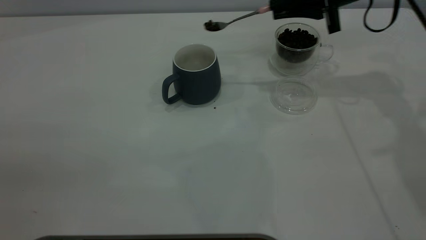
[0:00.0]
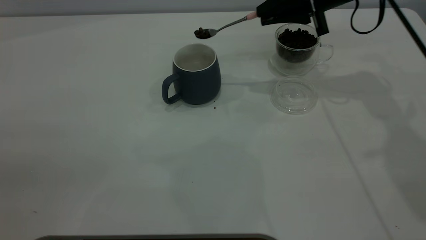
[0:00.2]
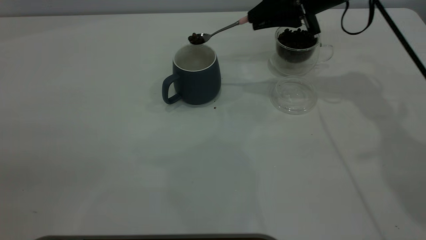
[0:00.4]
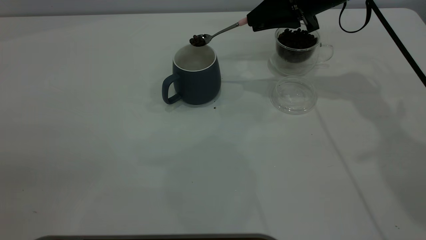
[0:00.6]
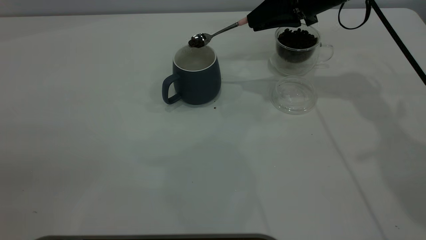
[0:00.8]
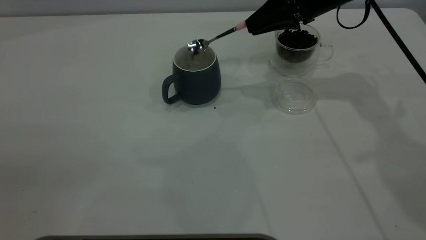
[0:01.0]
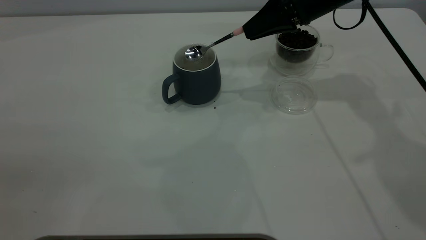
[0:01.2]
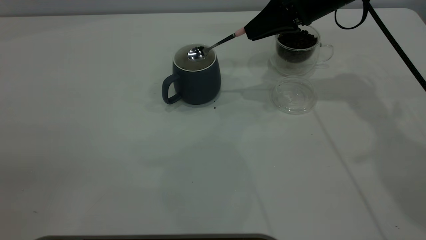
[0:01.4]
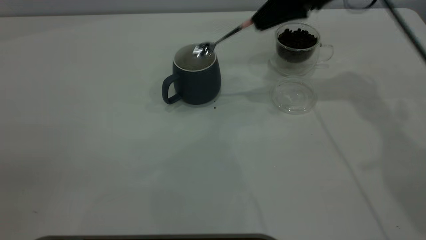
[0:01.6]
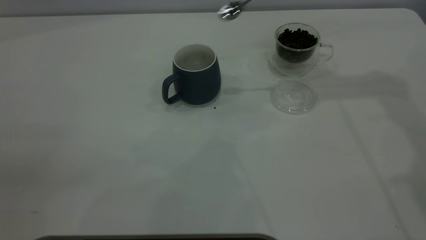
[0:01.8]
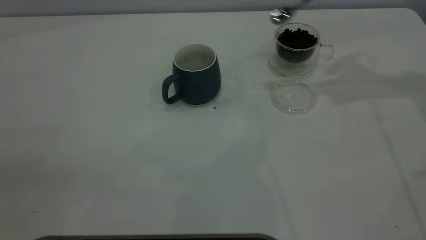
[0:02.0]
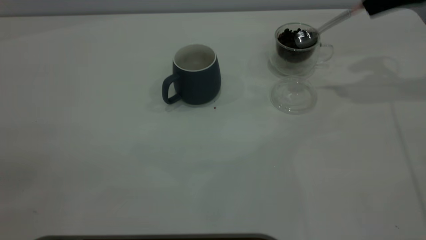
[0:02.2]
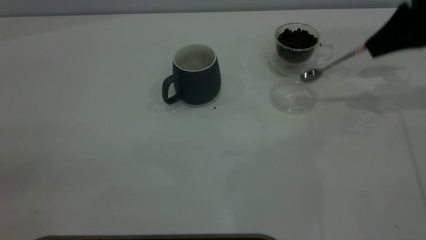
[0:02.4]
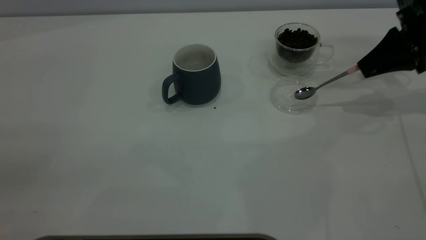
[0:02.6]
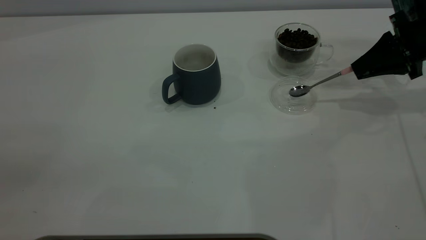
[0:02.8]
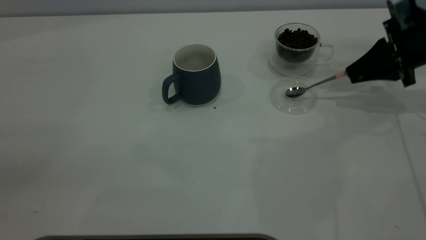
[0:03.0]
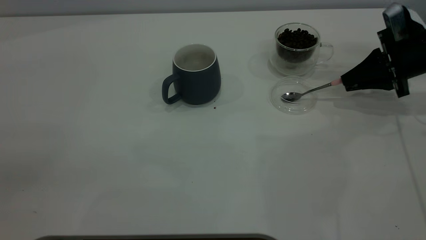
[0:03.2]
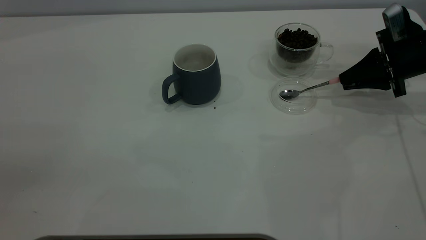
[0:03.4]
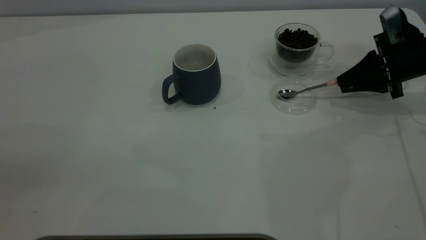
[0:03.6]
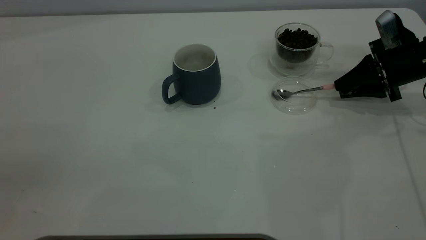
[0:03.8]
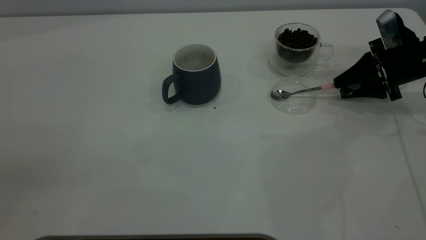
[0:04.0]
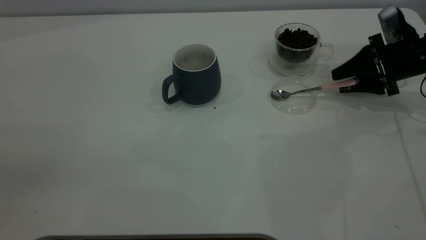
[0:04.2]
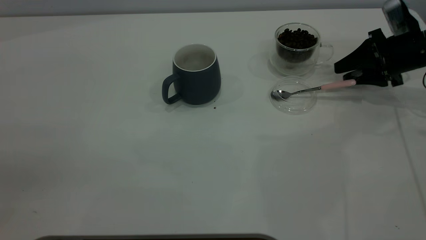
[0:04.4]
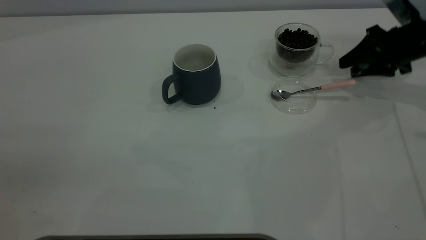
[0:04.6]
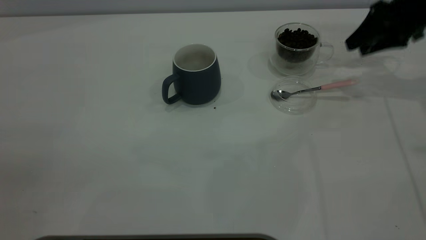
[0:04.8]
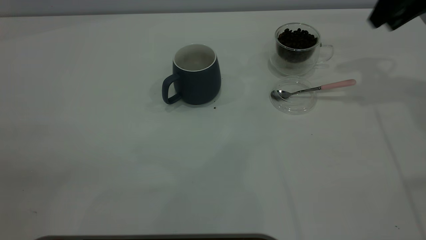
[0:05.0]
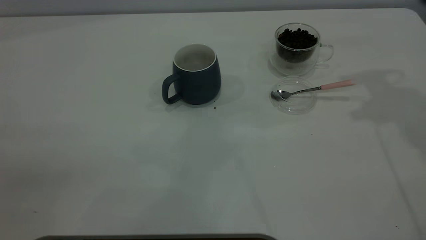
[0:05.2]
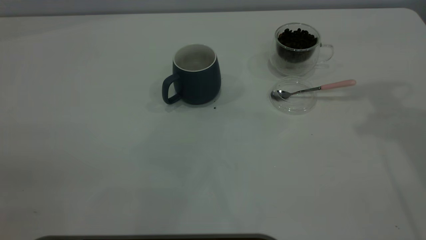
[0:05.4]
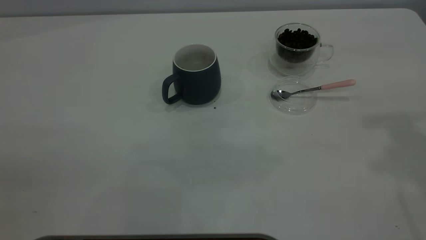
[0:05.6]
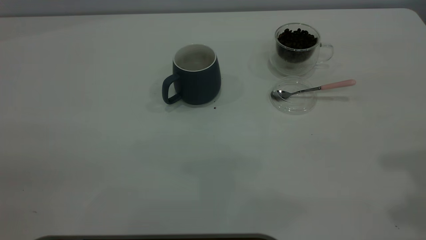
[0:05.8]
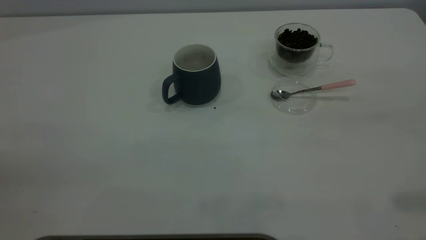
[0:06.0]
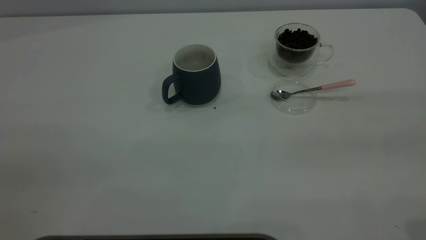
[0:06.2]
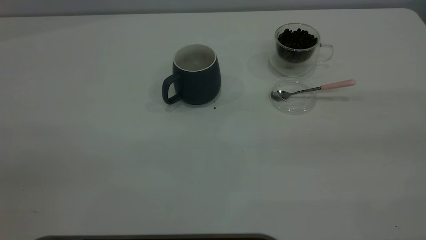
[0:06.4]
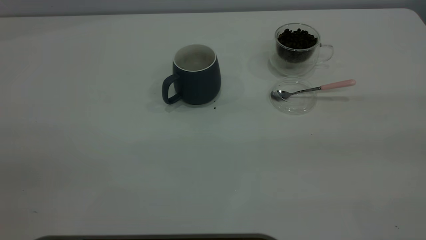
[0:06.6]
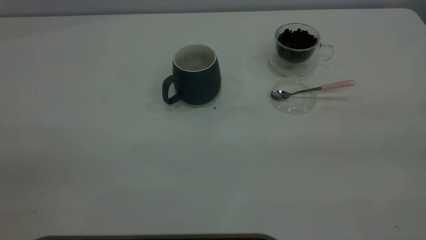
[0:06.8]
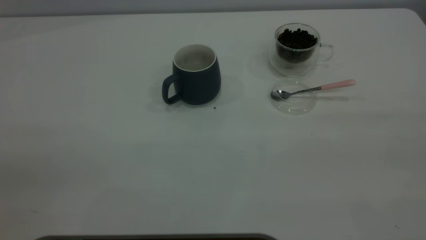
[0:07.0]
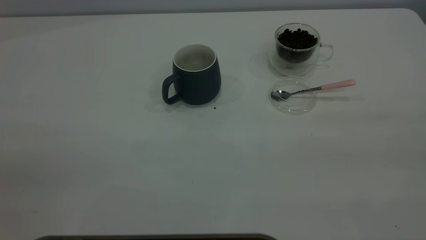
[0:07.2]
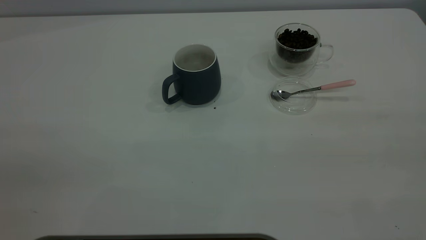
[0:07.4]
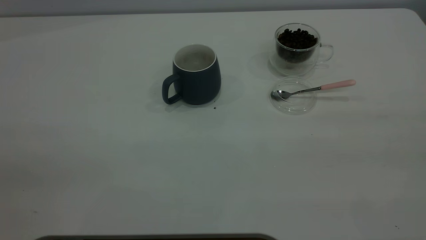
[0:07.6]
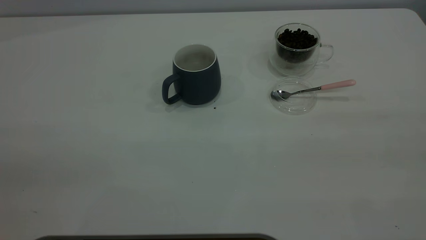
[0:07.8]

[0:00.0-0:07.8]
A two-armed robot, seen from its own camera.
Task of the whole recording: the left gripper place the grey cup in the center of the table, the right gripper take the pink spoon from the cup lid and scoop out the coffee beans from the coffee cup and put them into the grey cup, the right gripper put the spoon back into the cup lid.
Step, 0:01.6 to 0:04.4: Place the spoon back in its original place.
0:01.6 to 0:03.2: The right gripper moves to the right and downward, roughly 20 cm.
0:03.2 to 0:04.6: The right gripper opens.
0:04.6 to 0:06.2: The right gripper goes some 40 cm backward and upward.

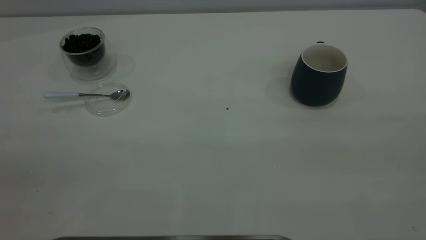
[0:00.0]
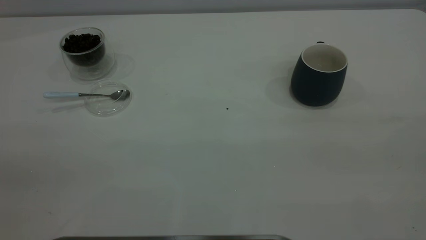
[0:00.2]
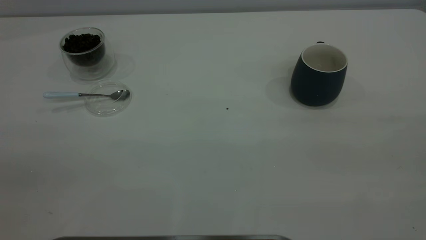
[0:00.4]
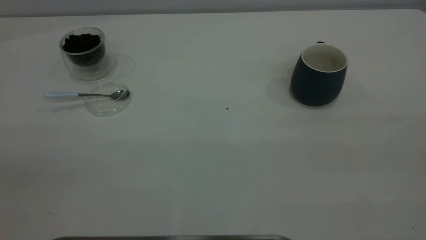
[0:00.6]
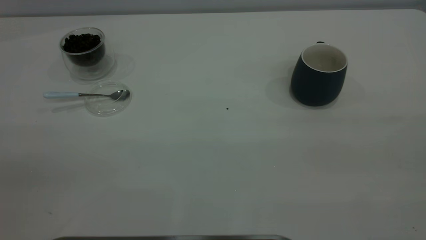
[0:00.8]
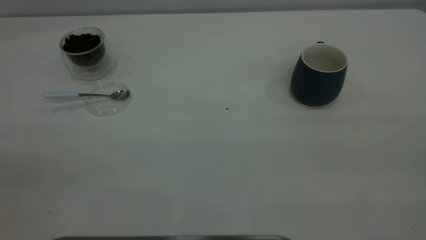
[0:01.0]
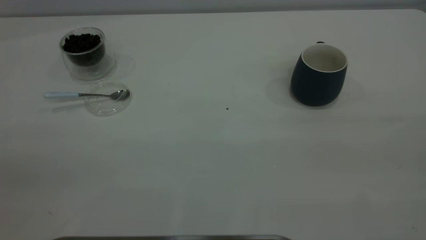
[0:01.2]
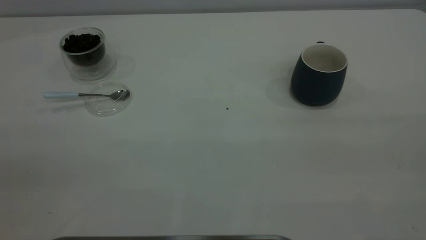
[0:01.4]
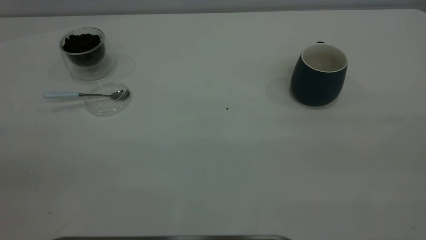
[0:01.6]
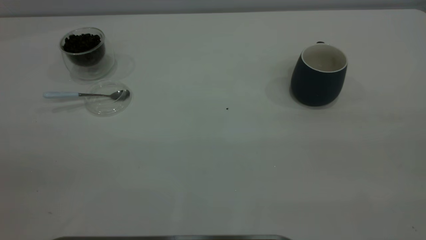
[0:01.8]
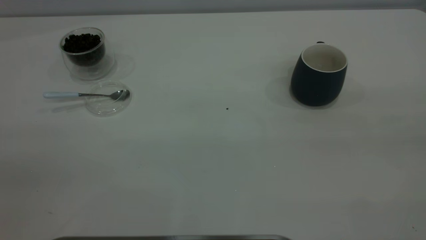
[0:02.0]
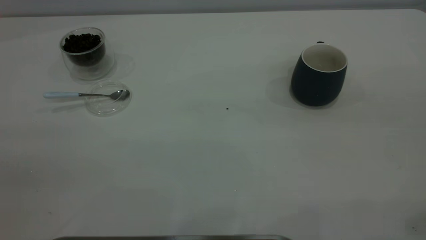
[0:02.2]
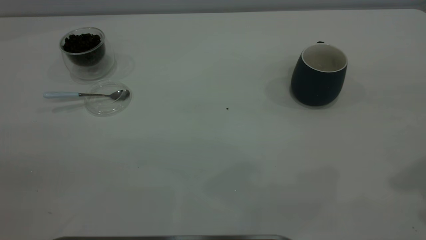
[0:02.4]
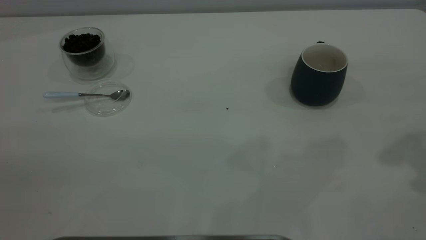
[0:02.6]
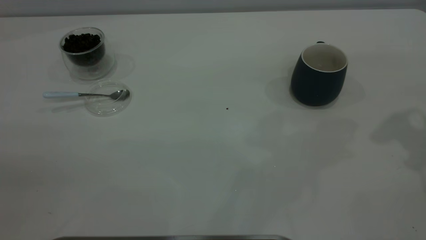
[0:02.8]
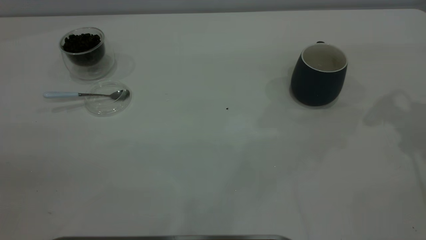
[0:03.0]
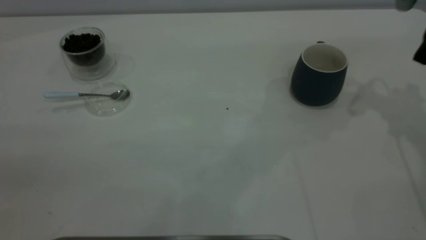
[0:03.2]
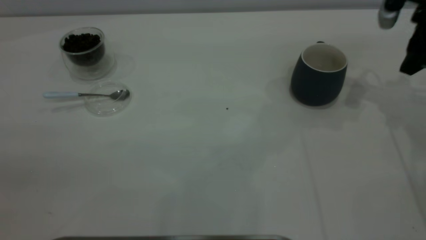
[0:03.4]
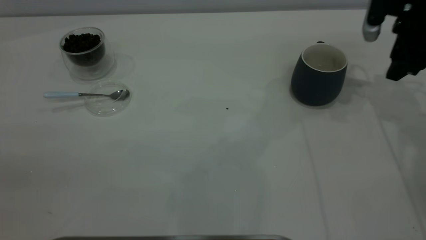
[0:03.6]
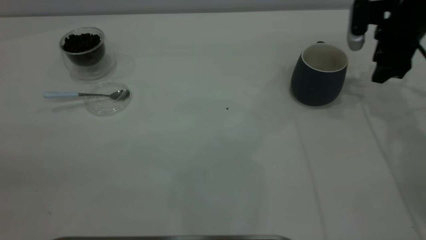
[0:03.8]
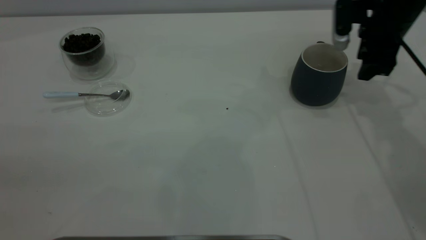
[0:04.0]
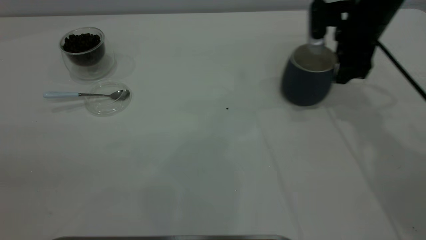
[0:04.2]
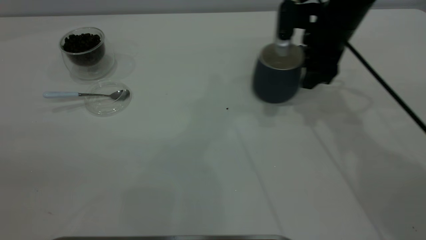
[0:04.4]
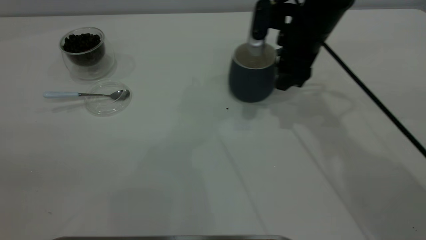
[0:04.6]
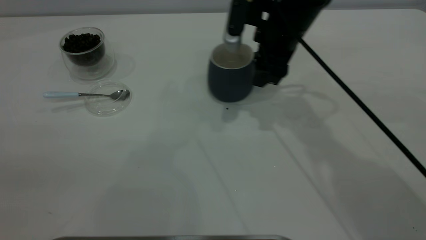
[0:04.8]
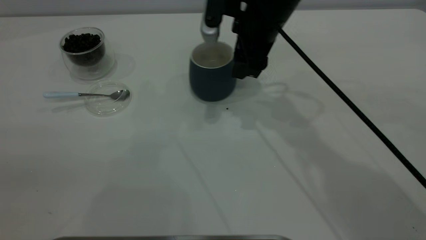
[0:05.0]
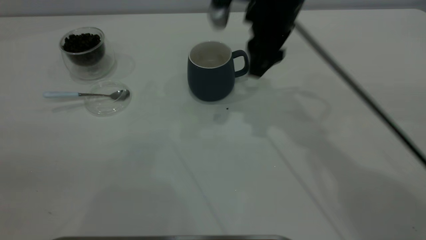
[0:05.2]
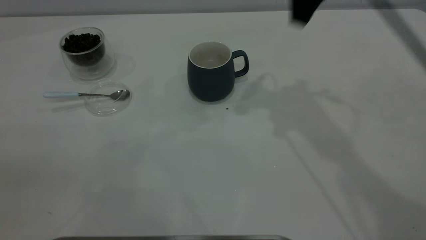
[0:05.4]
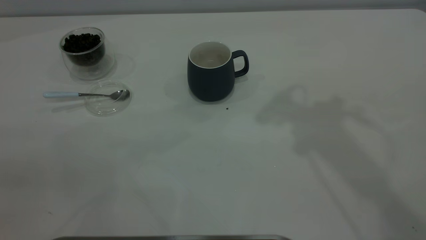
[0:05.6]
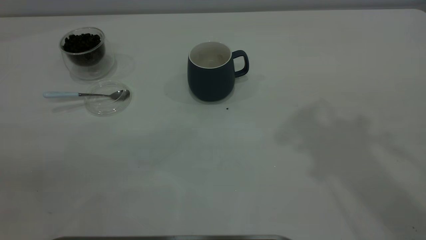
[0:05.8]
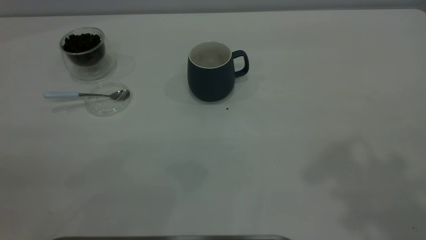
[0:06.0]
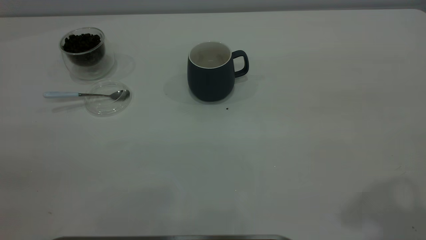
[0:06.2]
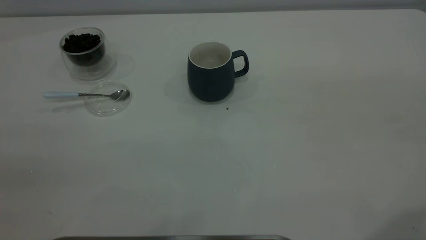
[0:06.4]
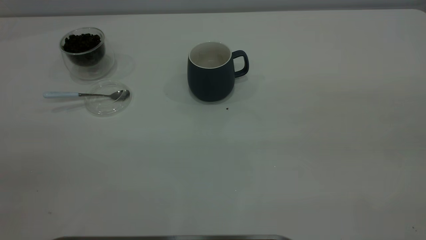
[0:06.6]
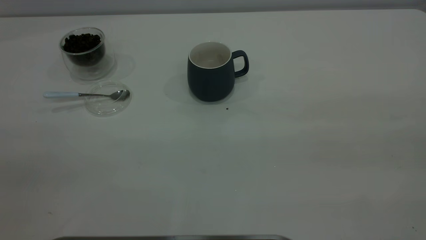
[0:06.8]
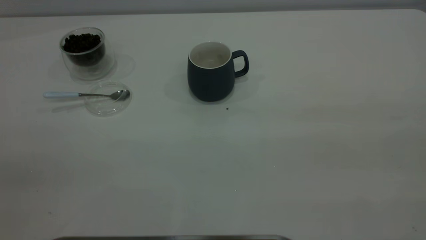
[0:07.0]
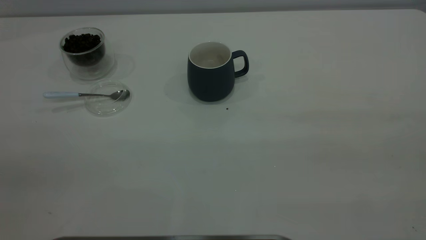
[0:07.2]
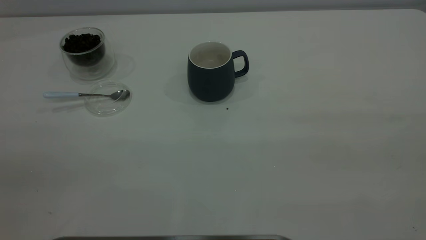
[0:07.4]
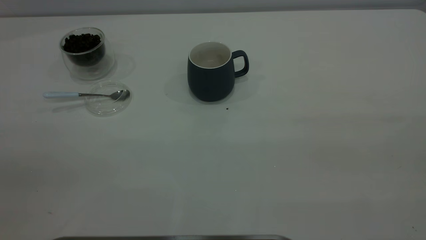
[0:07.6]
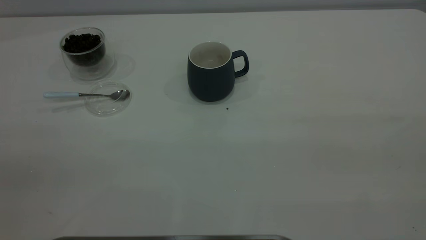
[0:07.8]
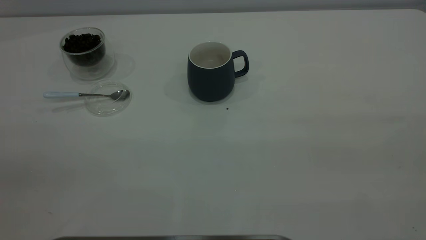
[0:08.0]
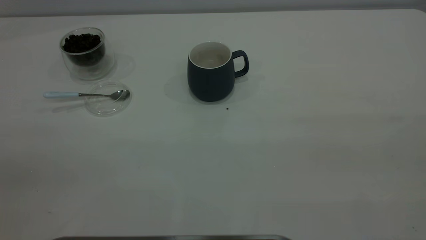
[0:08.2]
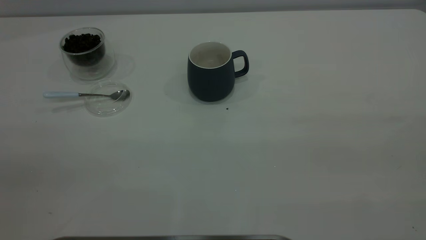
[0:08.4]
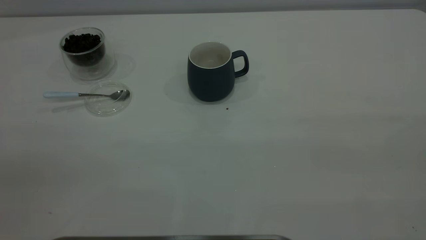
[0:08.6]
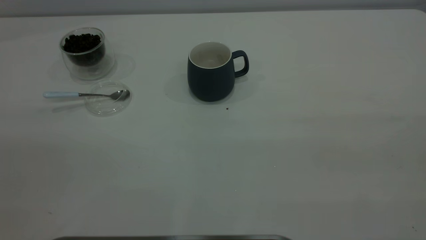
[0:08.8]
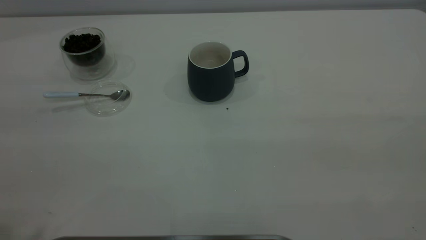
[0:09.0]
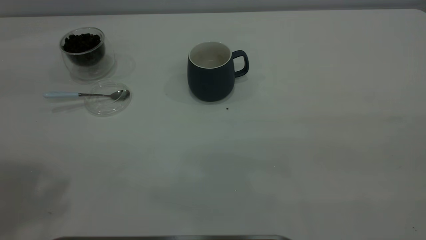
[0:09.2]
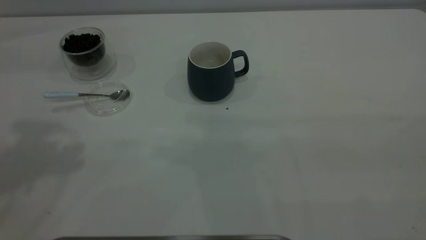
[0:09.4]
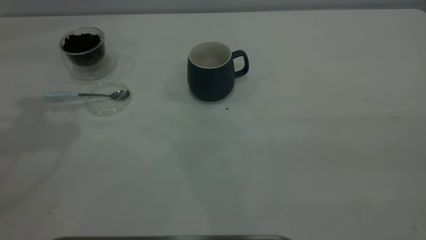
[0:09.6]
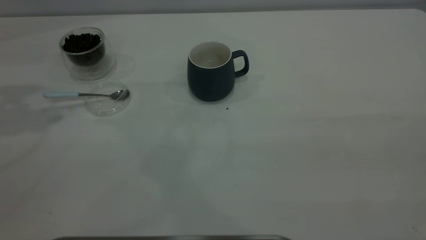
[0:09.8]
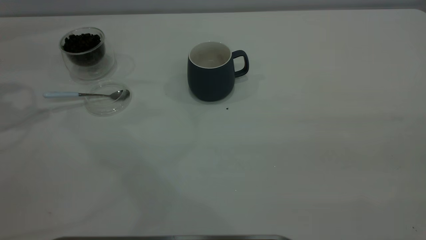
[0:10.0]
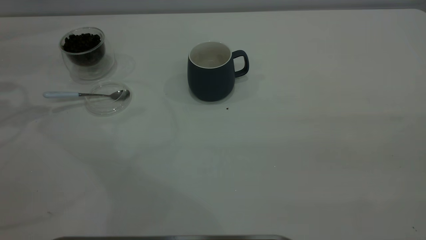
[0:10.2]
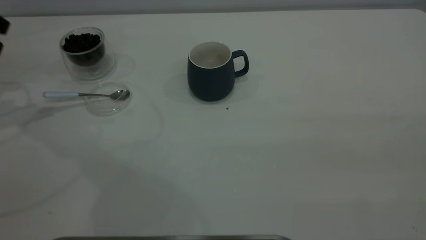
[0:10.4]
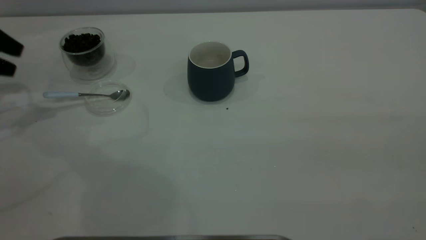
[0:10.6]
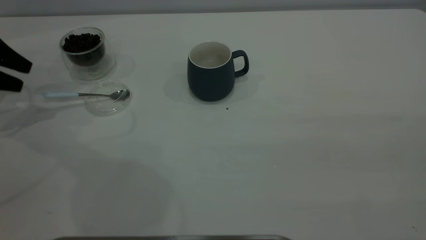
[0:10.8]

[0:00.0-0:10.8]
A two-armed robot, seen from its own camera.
Task of the whole recording: the right gripper place the grey cup in the center of the table, the left gripper take the blue spoon from the cup lid and scoop out the coffee beans from the coffee cup and put them into the grey cup, the left gripper put the spoon back into the cup lid.
Step, 0:00.0 to 0:05.2: Move the cup to the center of view.
0:00.0 to 0:01.6: Both grippers stay put.
0:03.0 to 0:04.6: The right gripper travels to the left and downward by about 25 cm.
0:04.6 to 0:06.2: The right gripper shifts some 40 cm backward, upward and to the right.
0:09.2 to 0:10.8: The left gripper heads downward, forward and to the left, covering about 35 cm.
